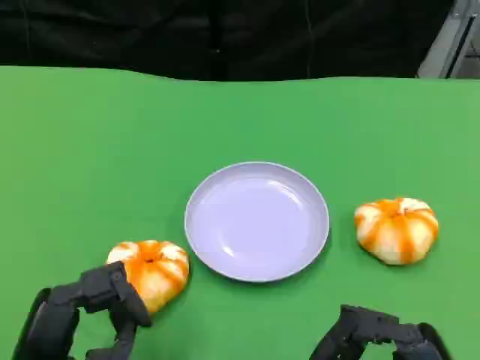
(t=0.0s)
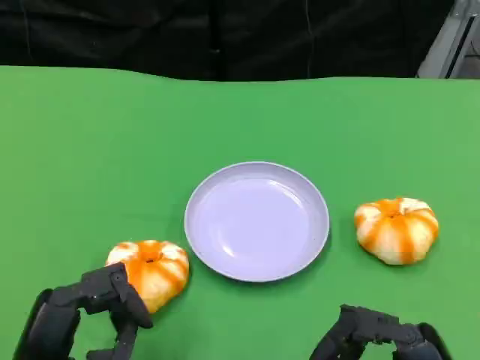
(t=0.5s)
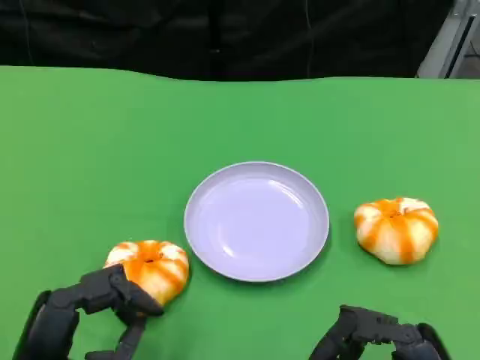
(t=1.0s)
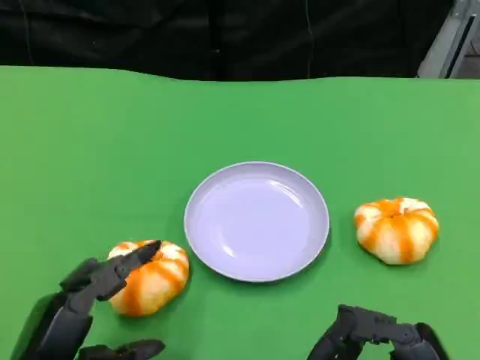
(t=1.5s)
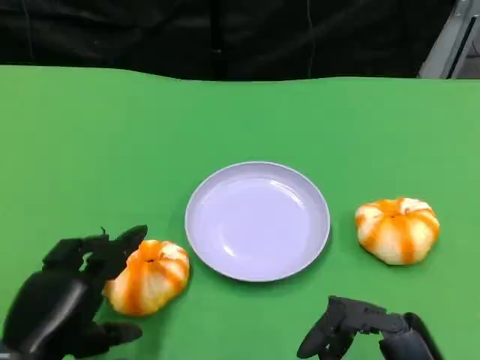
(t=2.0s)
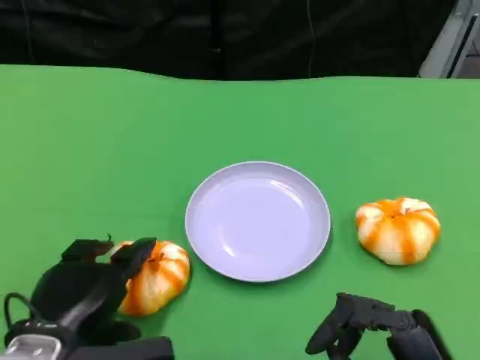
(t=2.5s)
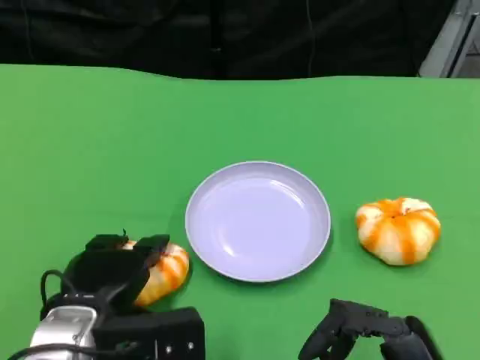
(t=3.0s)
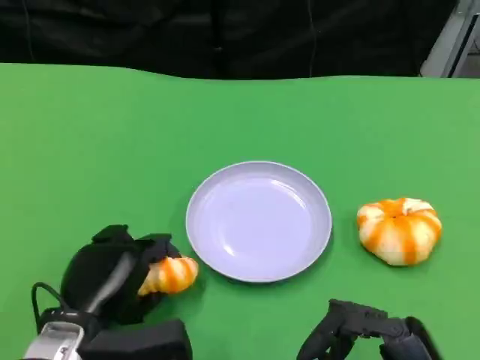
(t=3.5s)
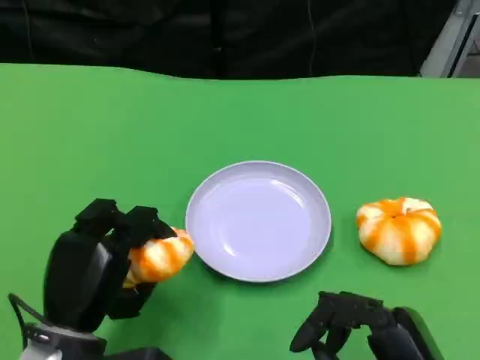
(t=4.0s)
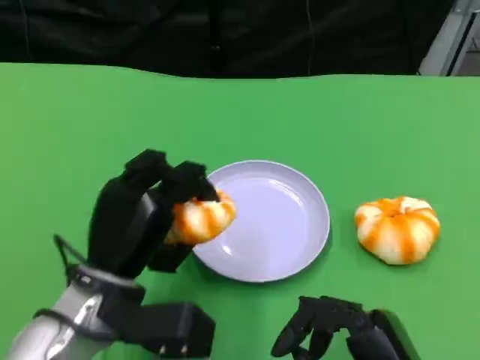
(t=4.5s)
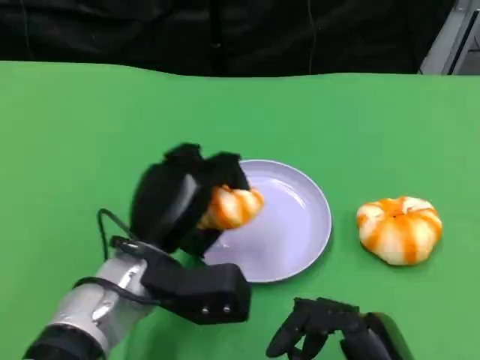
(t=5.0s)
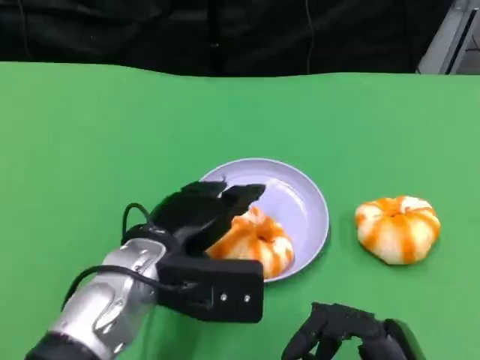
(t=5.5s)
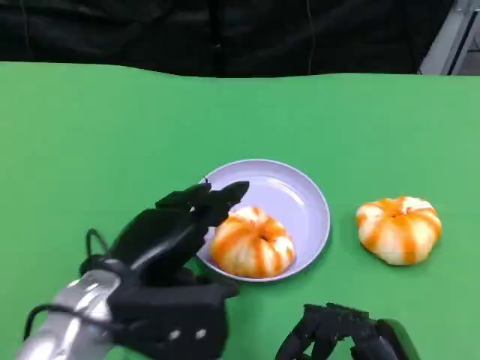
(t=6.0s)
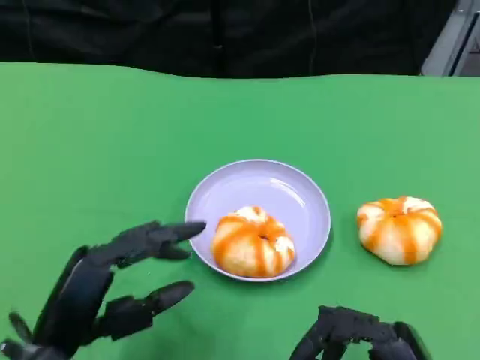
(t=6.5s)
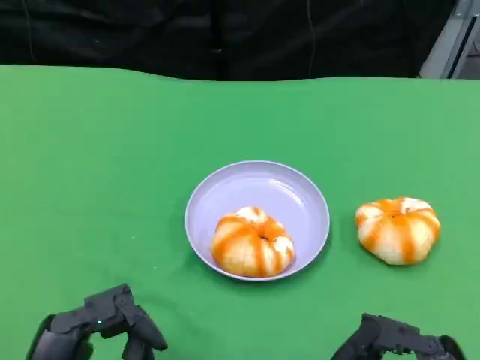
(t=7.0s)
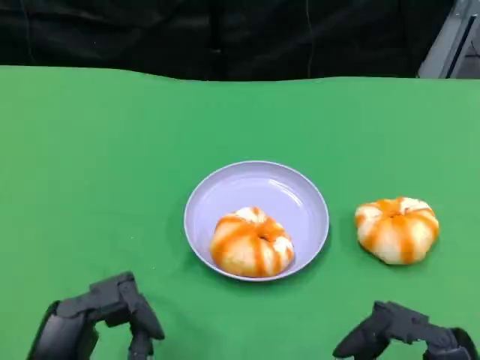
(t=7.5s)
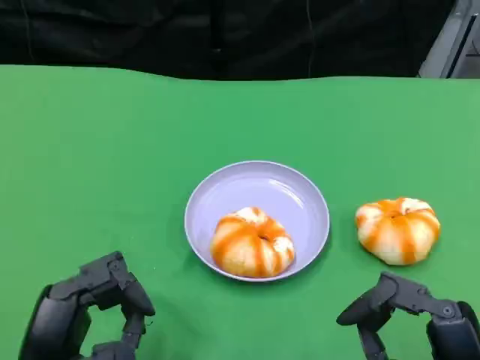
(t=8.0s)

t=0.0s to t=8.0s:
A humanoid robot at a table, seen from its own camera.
Task of the whole recording: Grasp the bread from the table and place it into the plate.
t=2.0s to t=4.0s: The left hand shifts by about 5 cm.
t=4.0s to t=6.0s: The left hand travels upward by approximately 5 cm.
t=6.0s to t=8.0s: The left hand moves backward and to the left, some 10 cm.

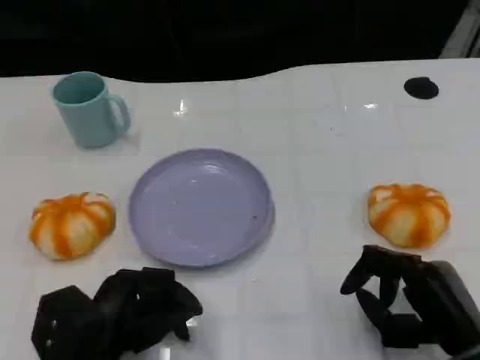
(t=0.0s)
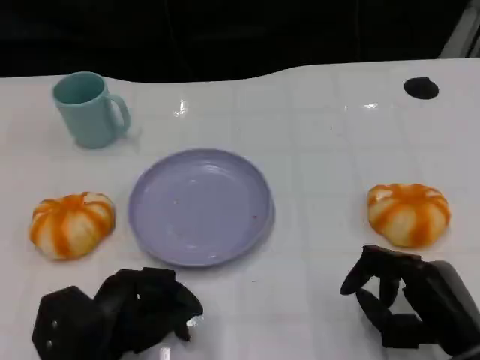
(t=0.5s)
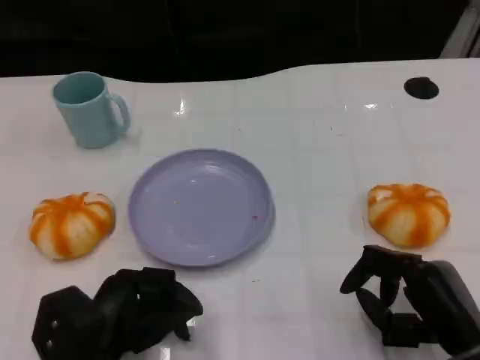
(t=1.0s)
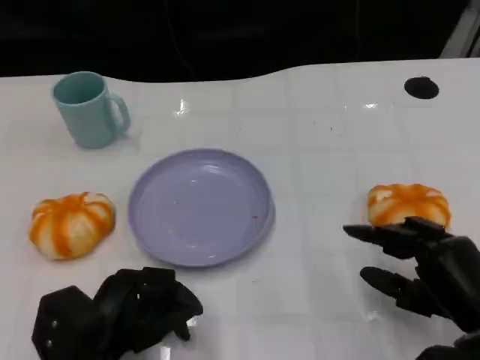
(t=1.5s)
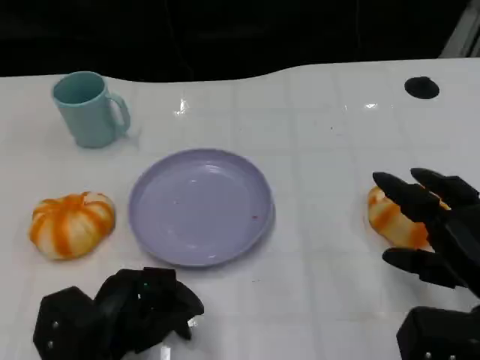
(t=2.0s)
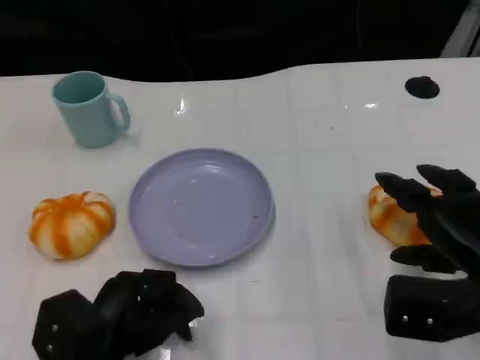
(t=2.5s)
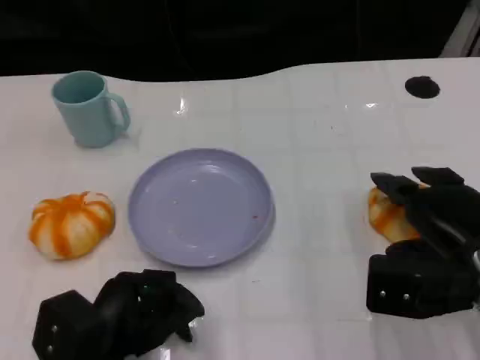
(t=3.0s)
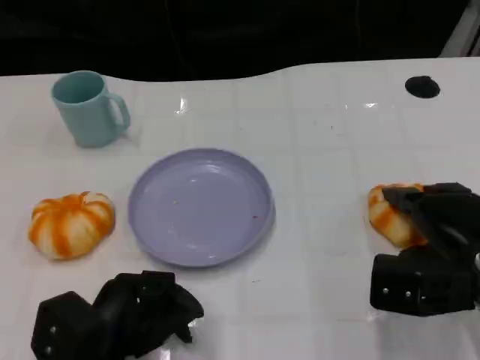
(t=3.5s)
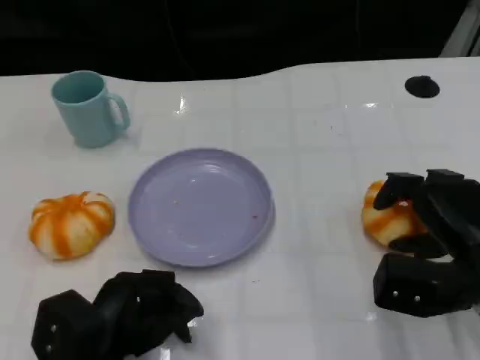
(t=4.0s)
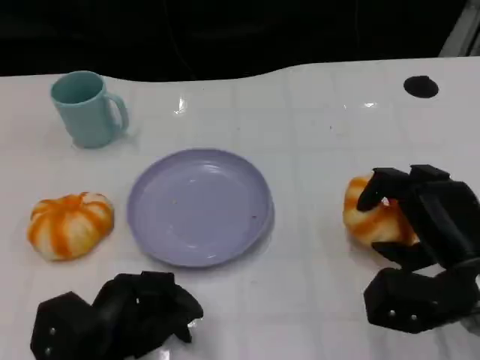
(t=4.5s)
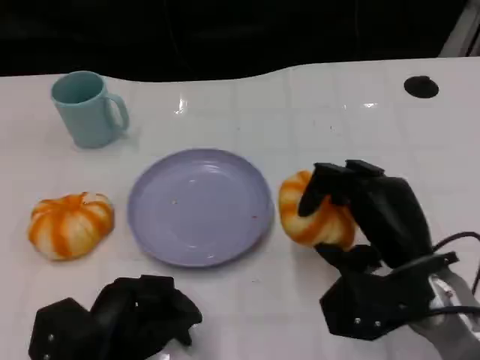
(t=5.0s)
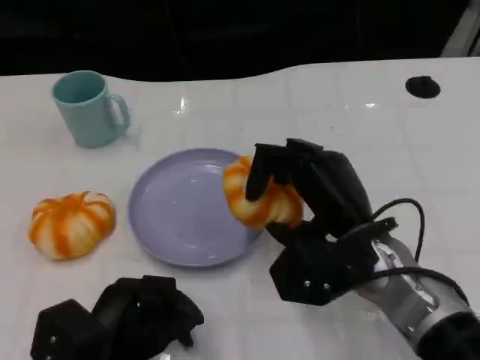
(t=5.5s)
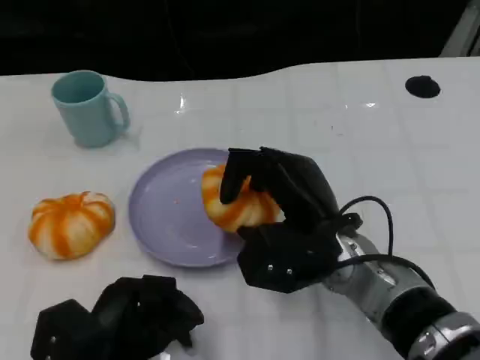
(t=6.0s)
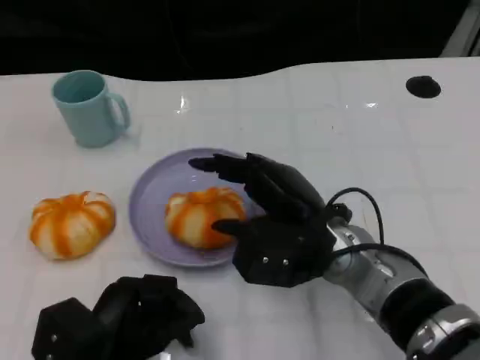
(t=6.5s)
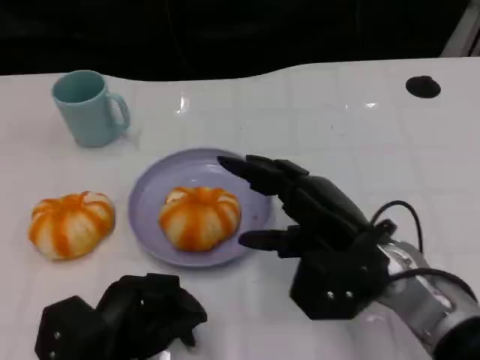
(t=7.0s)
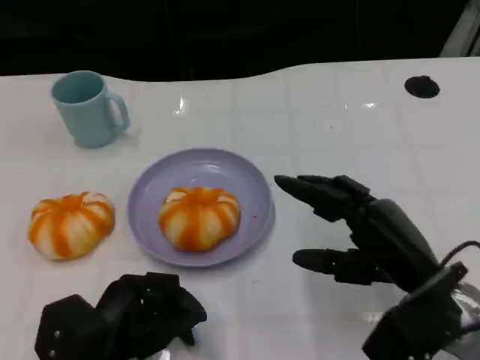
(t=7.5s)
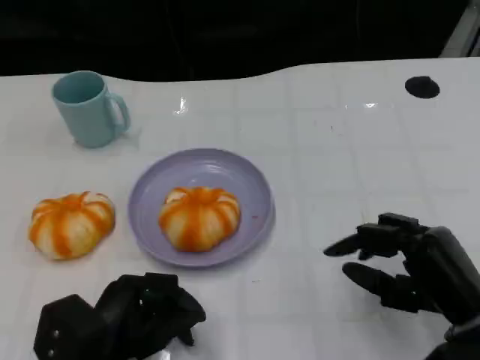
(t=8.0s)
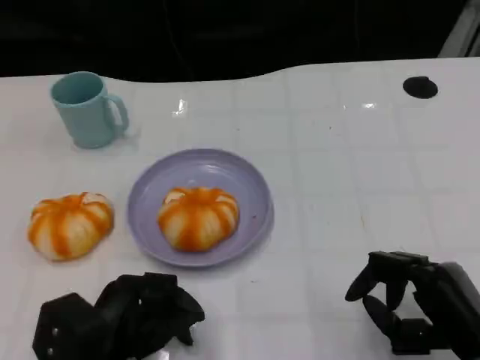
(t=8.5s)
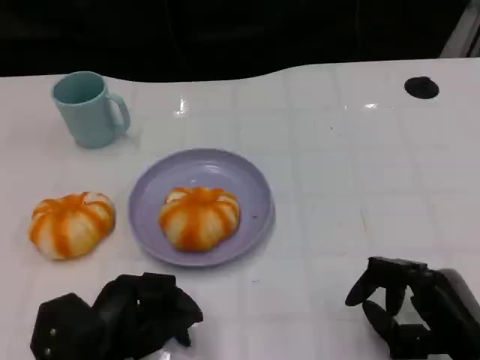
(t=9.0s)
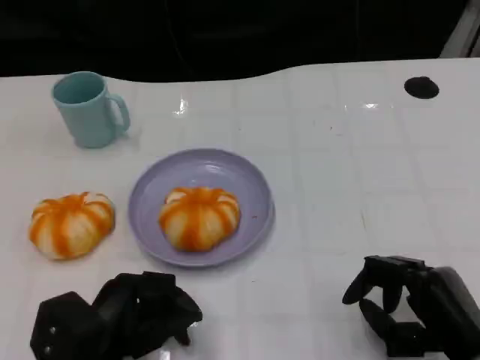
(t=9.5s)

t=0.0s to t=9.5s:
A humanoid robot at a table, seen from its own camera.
Task of the whole recording: Grasp the bread from the table and place it into the plate.
t=0.0s to t=2.0s: The right hand ends up approximately 5 cm from where it was.
t=2.0s to t=4.0s: The right hand ends up approximately 5 cm from where it was.
t=4.0s to t=5.5s: The right hand is displaced to the left by approximately 10 cm.
t=5.5s to t=7.5s: The right hand is displaced to the right by roughly 10 cm.
t=7.5s to t=9.5s: The right hand goes some 5 cm backward.

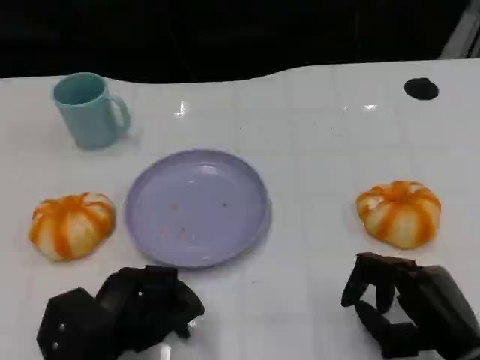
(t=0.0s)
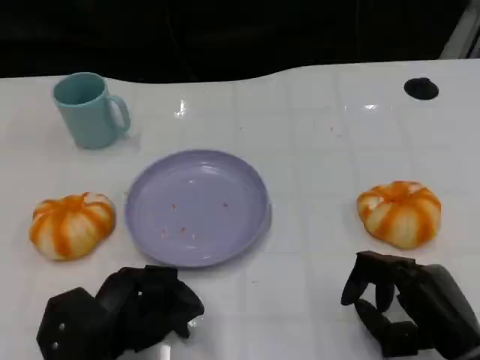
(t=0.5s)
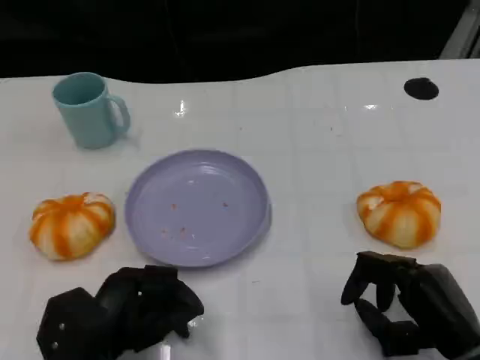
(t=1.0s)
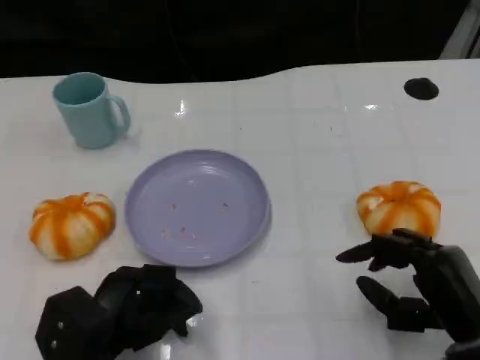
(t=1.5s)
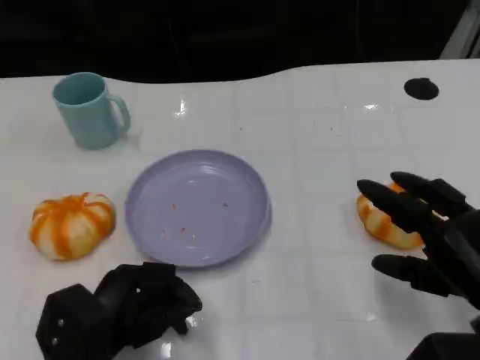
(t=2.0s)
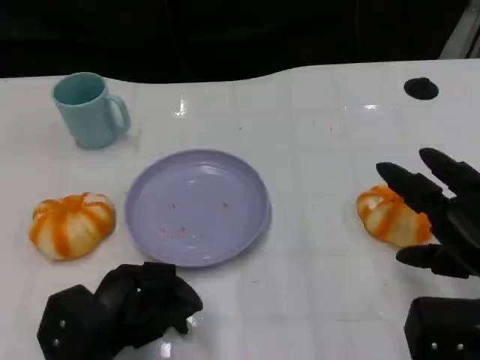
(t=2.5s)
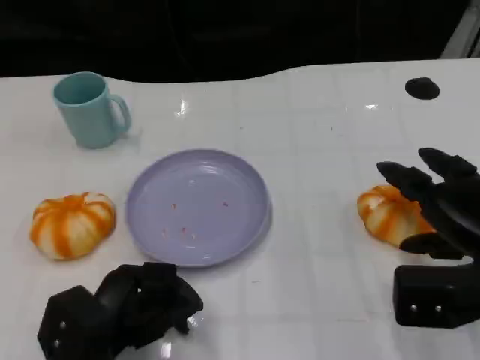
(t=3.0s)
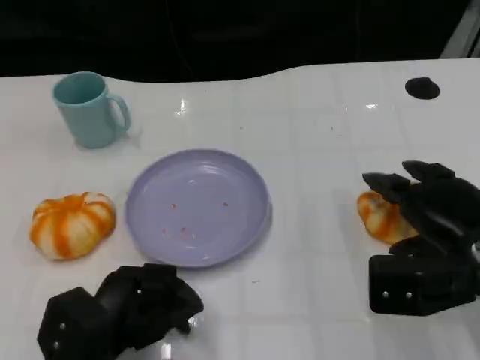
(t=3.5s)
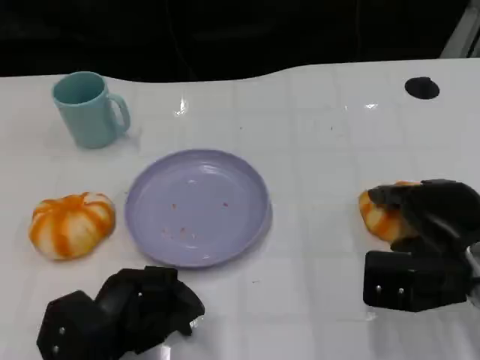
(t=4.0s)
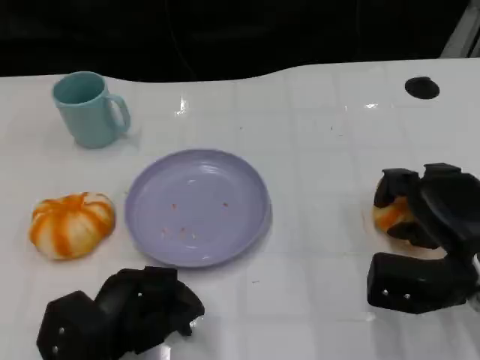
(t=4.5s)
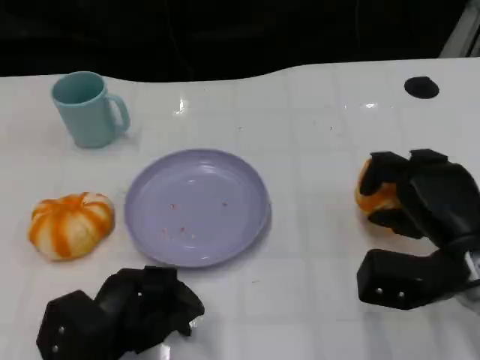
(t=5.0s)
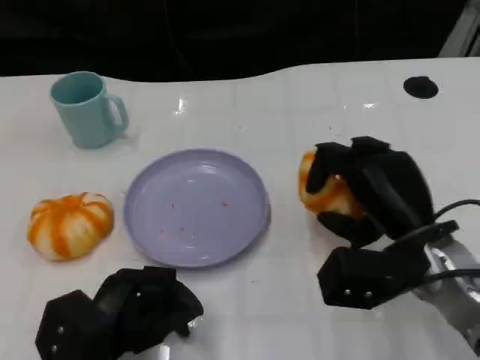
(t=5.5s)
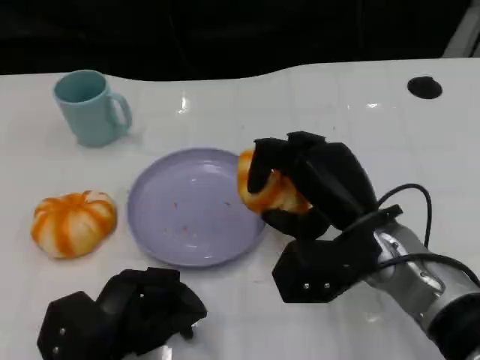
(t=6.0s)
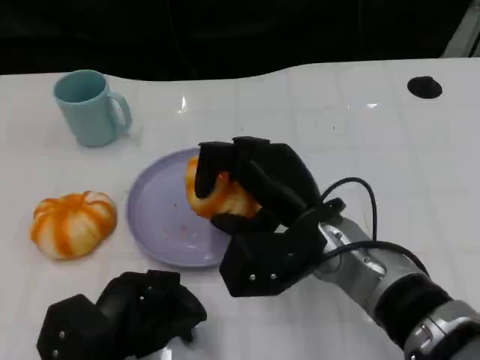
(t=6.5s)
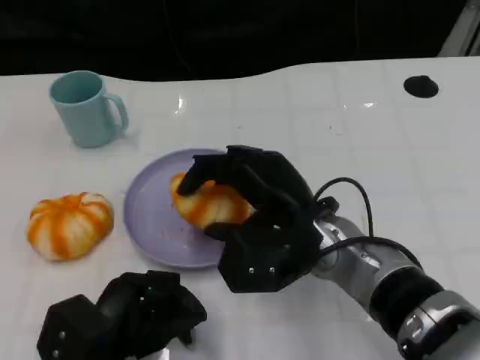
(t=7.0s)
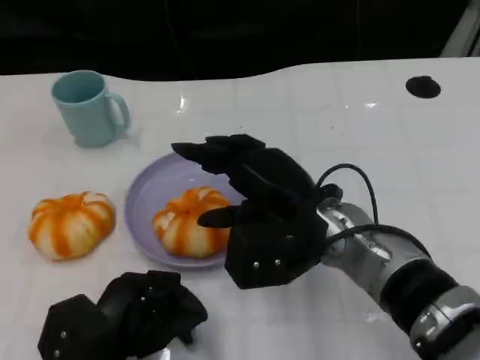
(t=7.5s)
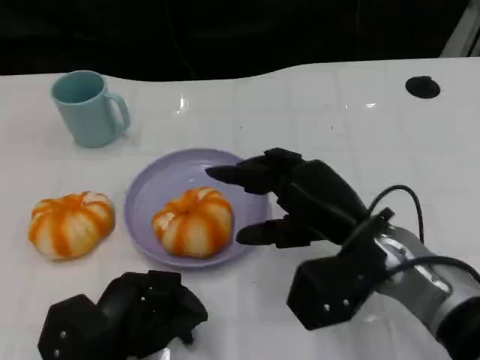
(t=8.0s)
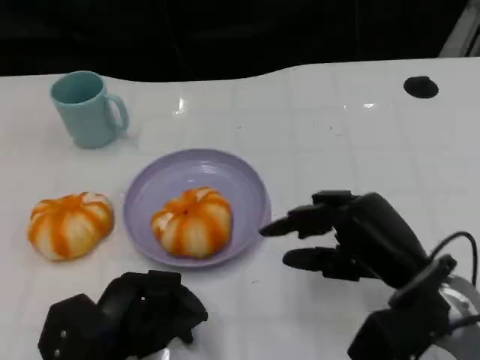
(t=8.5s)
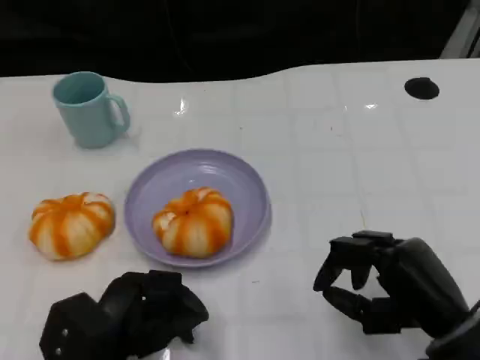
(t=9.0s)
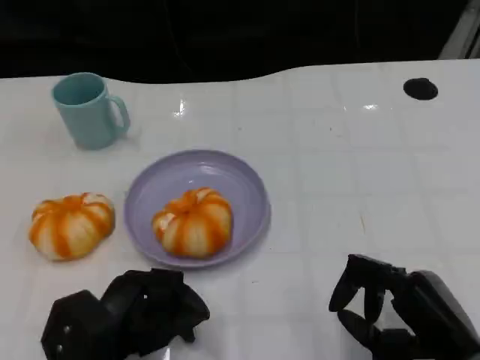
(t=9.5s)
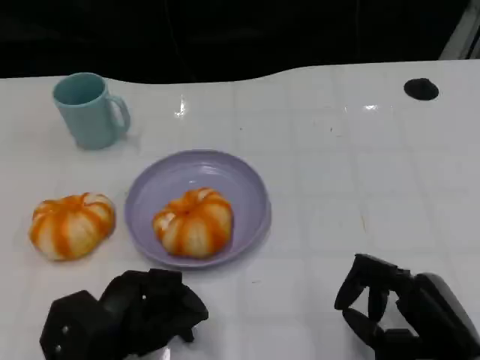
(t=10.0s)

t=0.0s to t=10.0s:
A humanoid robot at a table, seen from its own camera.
Task of the whole recording: Grasp the bread from the table and place it into the plate.
t=0.0s to t=2.0s: The right hand shifts approximately 5 cm upward.
t=2.0s to t=4.0s: The right hand moves forward, some 5 cm.
t=4.0s to t=6.0s: The right hand goes roughly 10 cm to the left.
t=6.0s to t=8.0s: The hands make only small movements.
t=8.0s to t=10.0s: The right hand travels backward, to the right and downward by about 15 cm.
